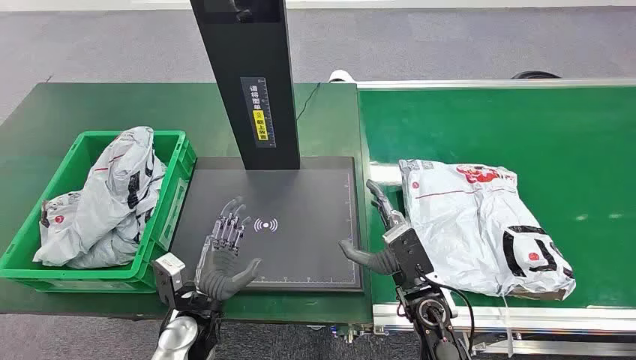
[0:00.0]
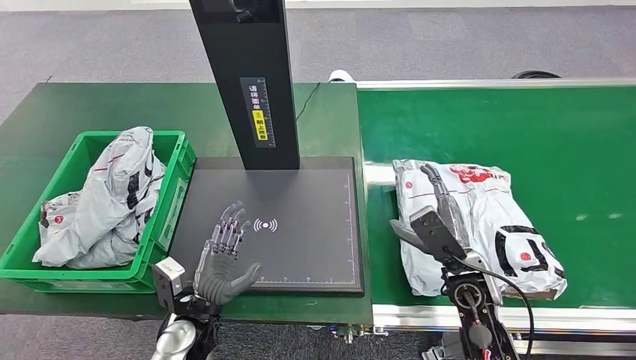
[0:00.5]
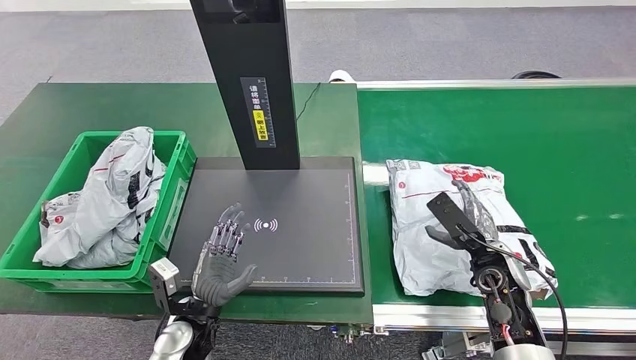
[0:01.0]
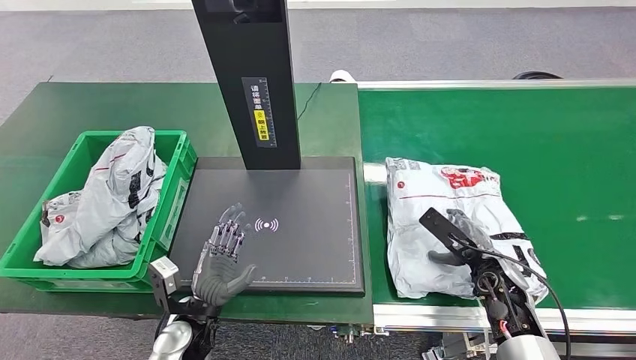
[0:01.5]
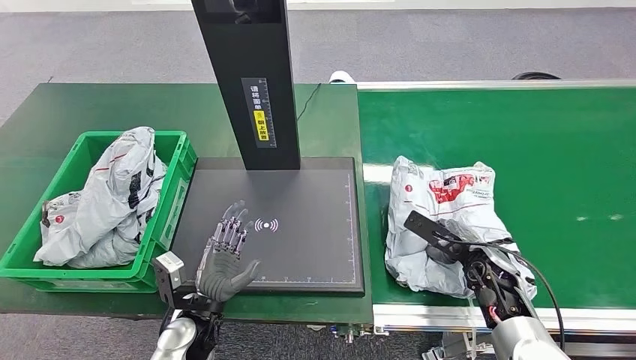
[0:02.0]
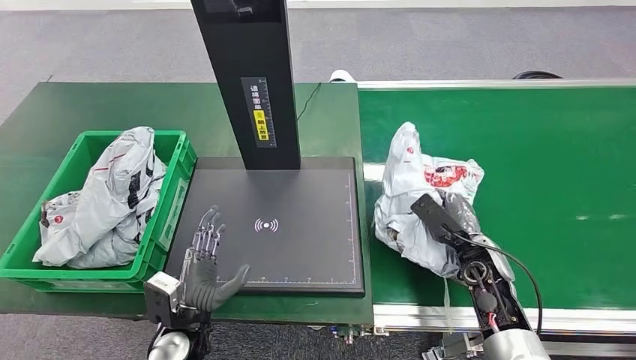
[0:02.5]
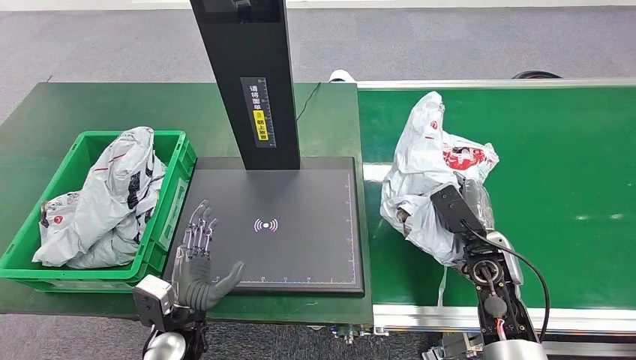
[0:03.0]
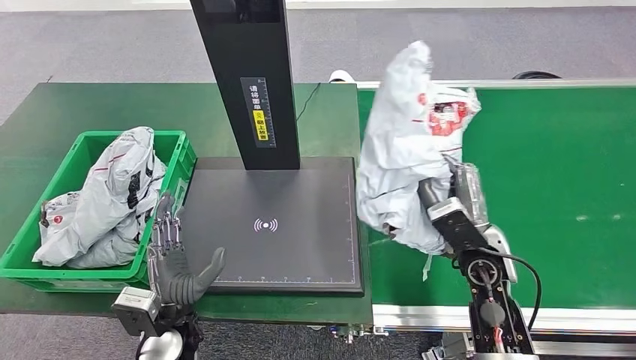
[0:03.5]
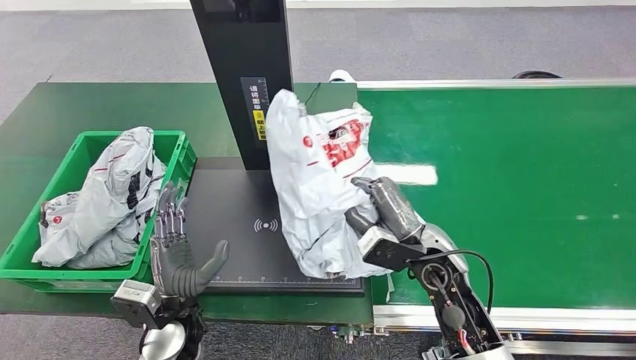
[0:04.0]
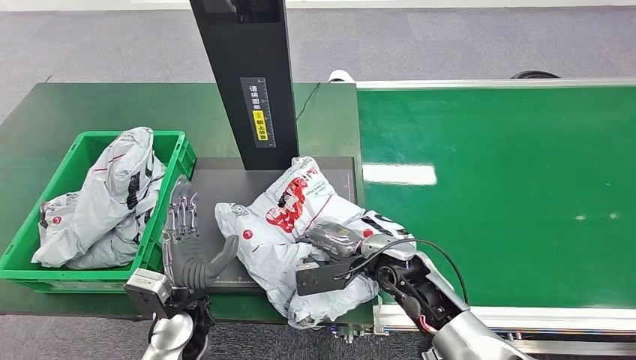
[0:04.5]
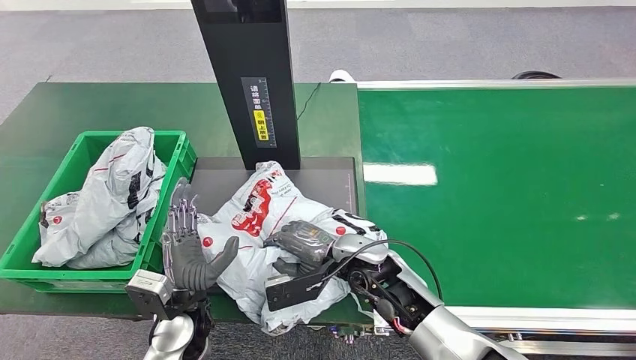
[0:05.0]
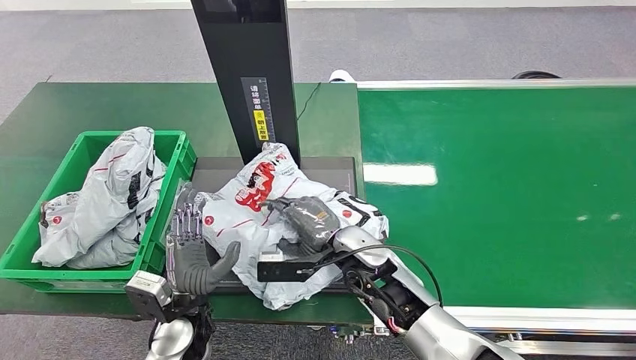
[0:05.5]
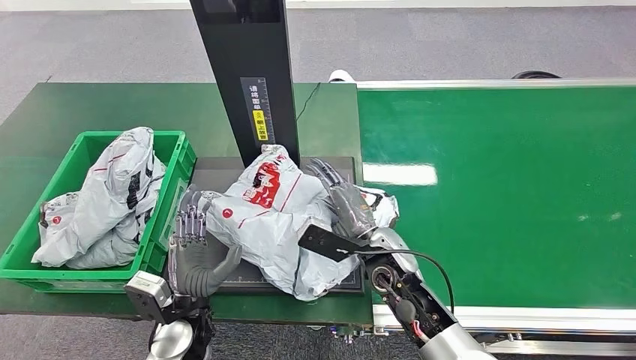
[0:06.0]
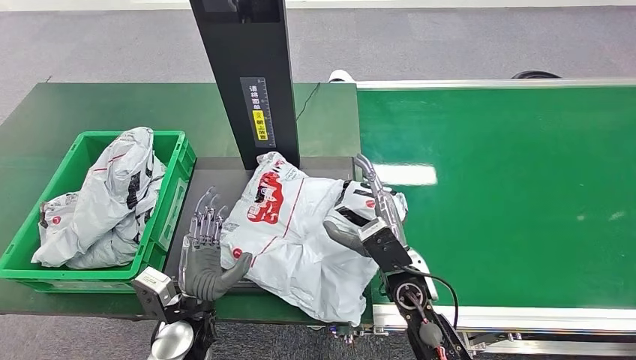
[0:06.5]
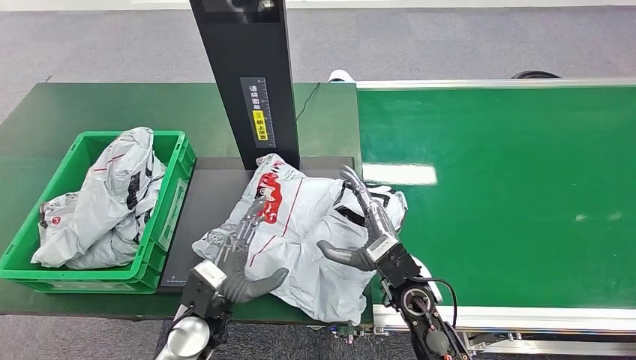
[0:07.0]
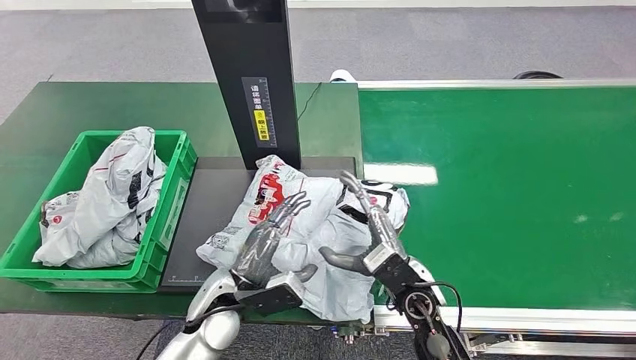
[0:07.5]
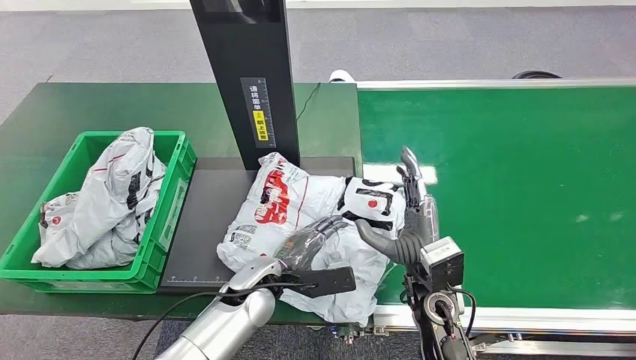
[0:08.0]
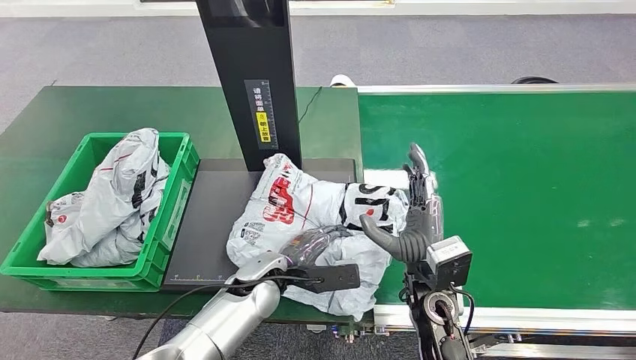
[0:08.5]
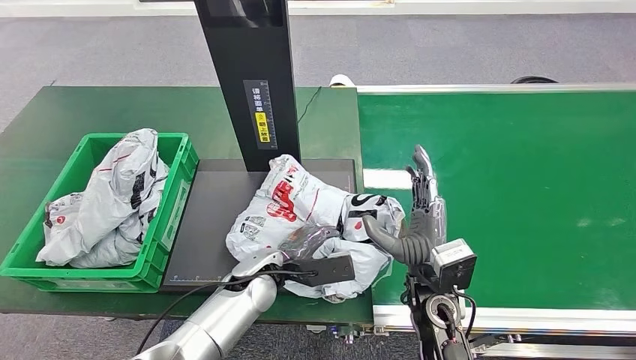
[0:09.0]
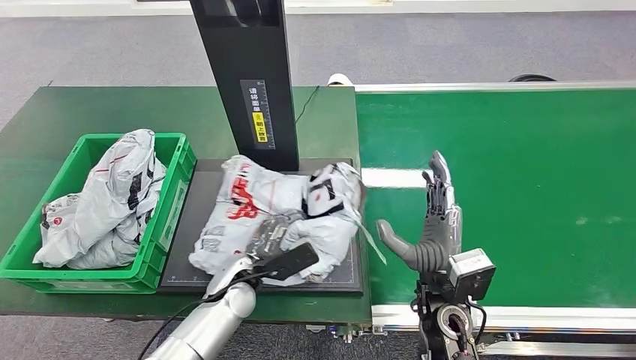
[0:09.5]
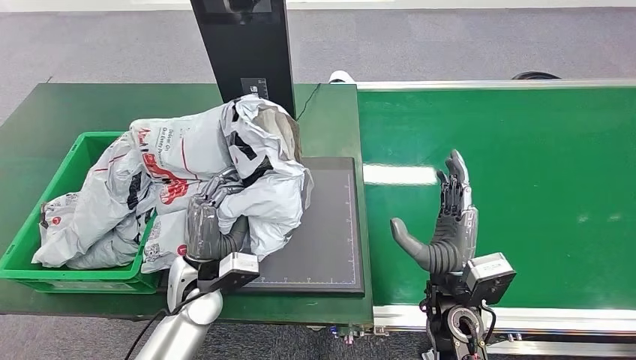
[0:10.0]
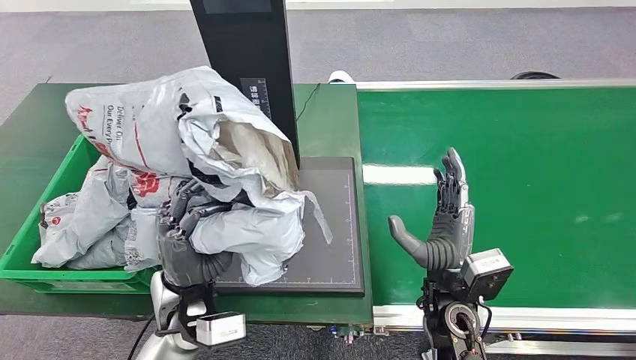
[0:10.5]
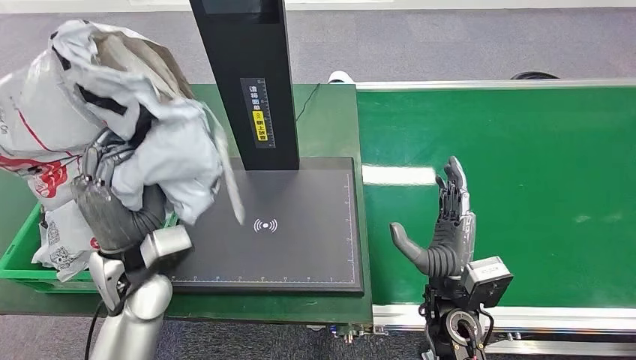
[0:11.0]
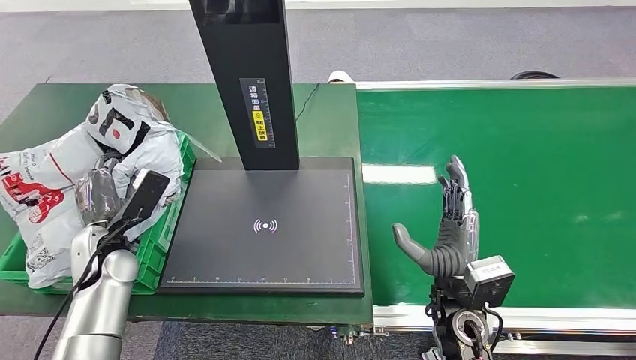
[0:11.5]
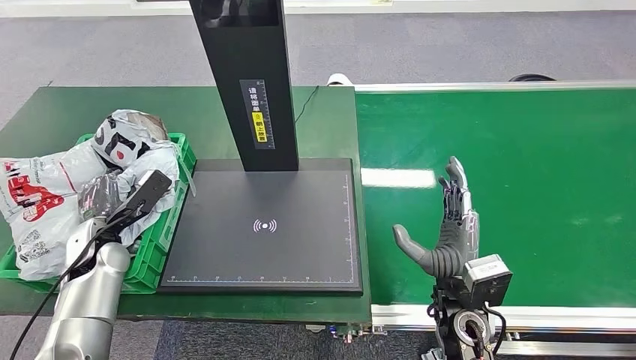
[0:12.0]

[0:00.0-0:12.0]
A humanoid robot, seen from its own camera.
Step, 0:00.0 to 0:03.0: Pick up the package from the conveyor belt.
Step, 0:03.5 to 0:05.5: Place the package onto the inbound machine.
Step, 0:06.0 to 0:10.0: Pick up the package from the inbound machine.
0:04.0 to 0:06.0: The right hand travels to the left by about 5 cm.
0:06.0 to 0:08.0: The left hand is displaced to the right and forward by approximately 10 cm; the right hand is displaced backward by roughly 5 cm.

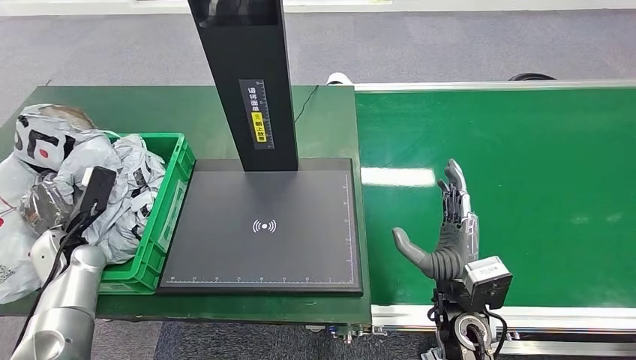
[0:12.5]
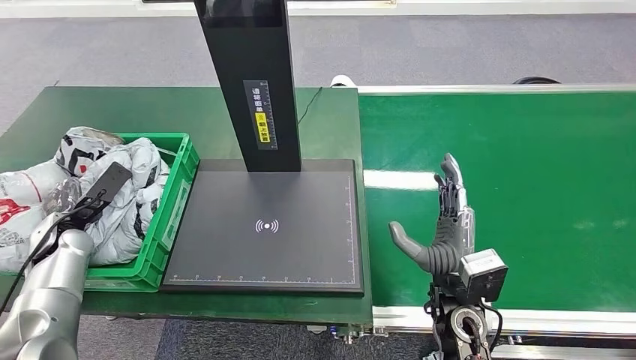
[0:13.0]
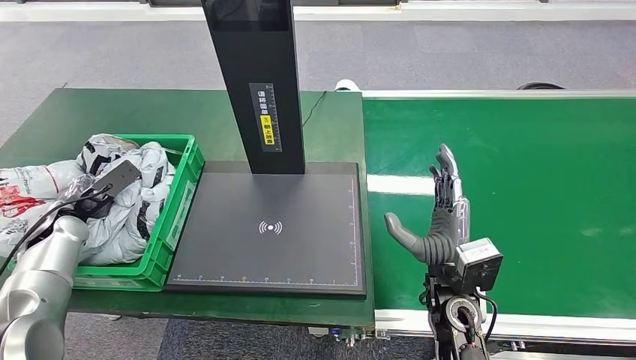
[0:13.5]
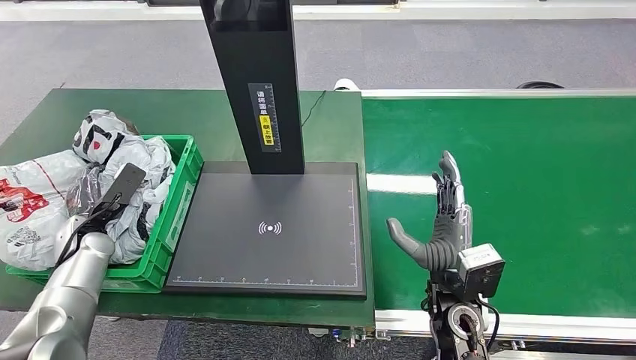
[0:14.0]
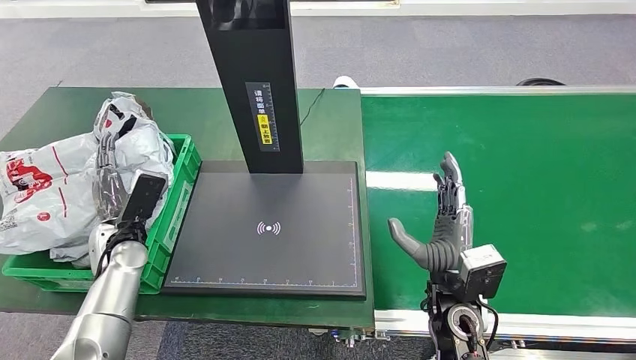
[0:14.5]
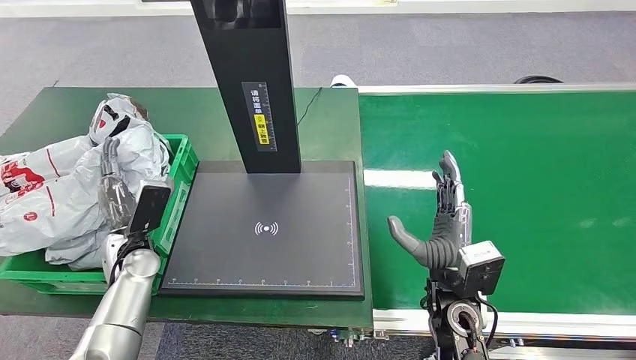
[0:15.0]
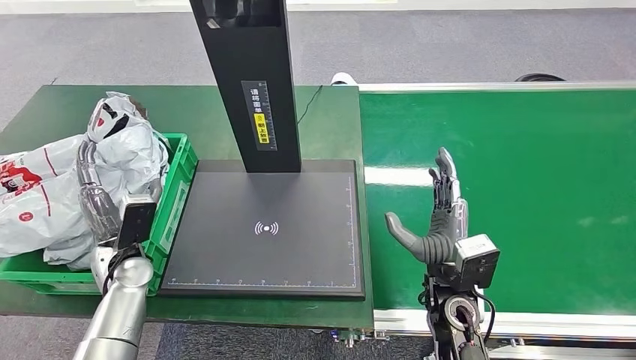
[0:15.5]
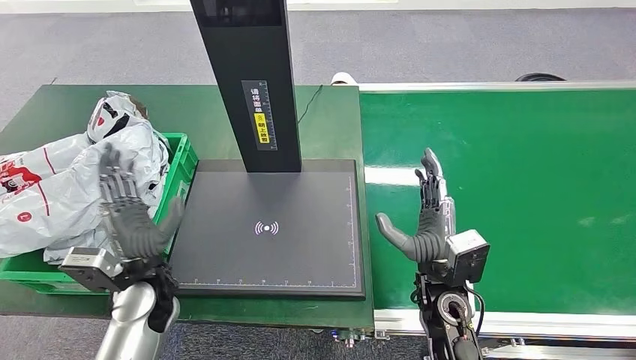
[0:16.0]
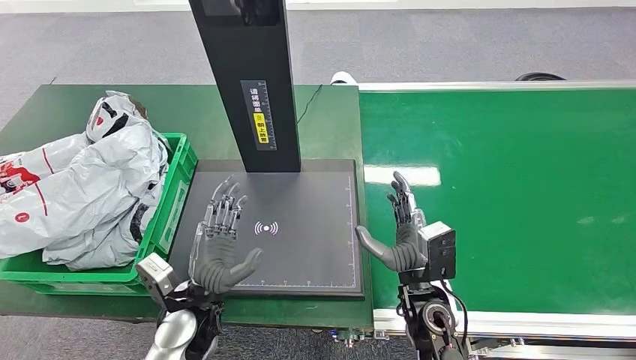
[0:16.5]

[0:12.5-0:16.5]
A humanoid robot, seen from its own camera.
Step, 0:12.5 to 0:16.5: Place the package into the parcel locker.
